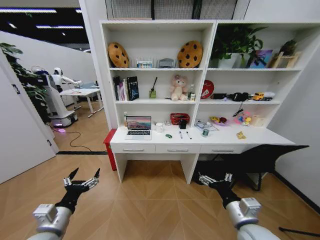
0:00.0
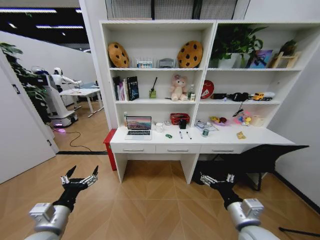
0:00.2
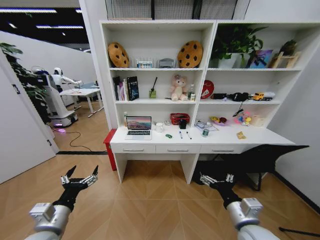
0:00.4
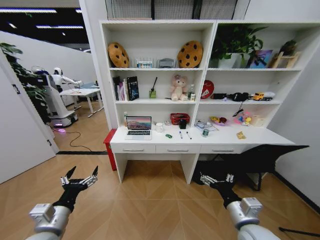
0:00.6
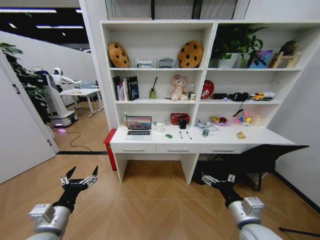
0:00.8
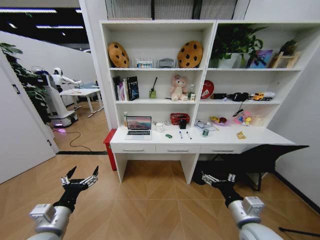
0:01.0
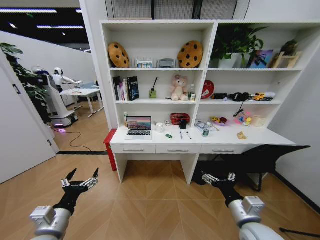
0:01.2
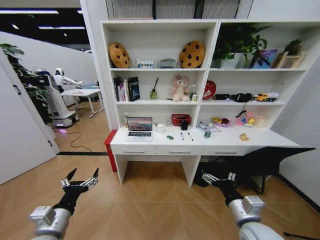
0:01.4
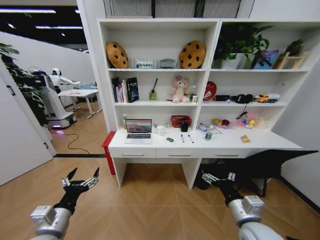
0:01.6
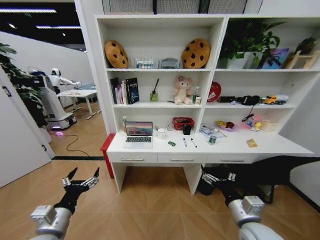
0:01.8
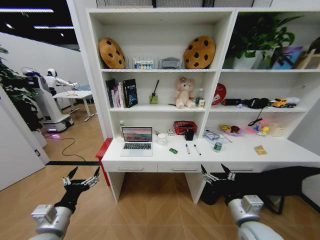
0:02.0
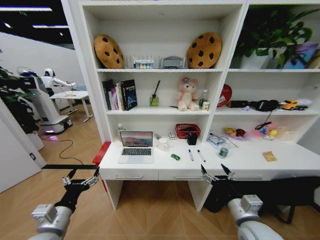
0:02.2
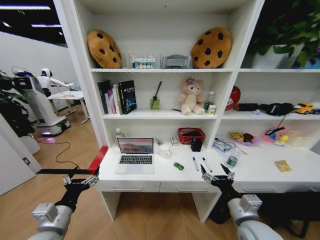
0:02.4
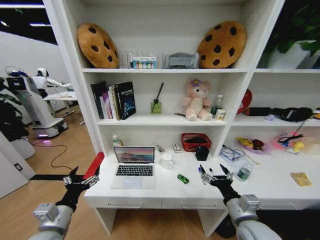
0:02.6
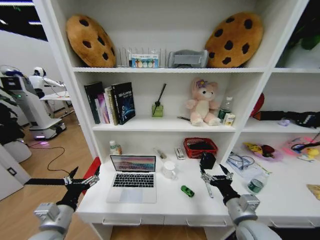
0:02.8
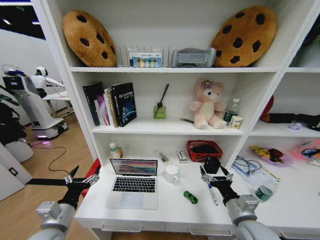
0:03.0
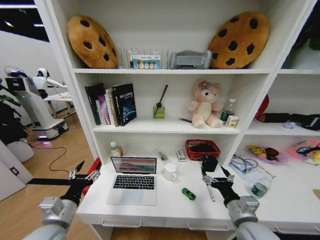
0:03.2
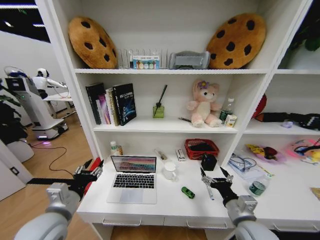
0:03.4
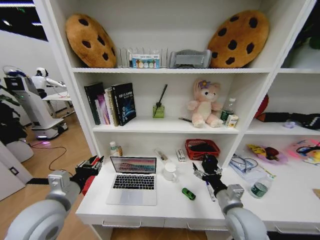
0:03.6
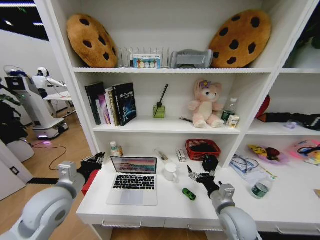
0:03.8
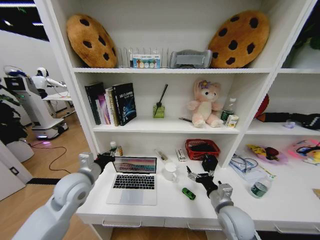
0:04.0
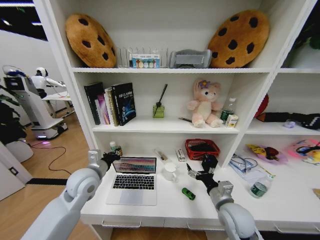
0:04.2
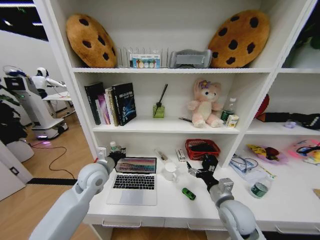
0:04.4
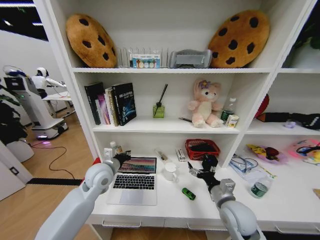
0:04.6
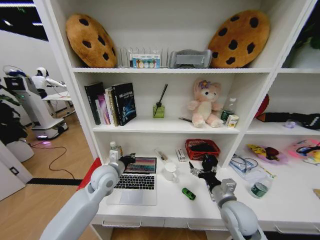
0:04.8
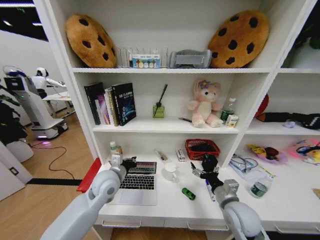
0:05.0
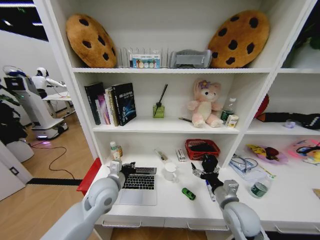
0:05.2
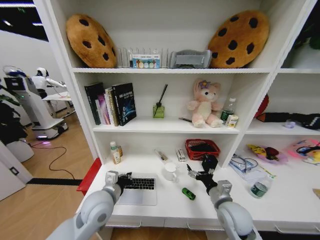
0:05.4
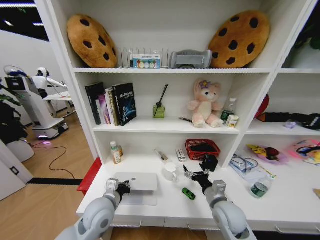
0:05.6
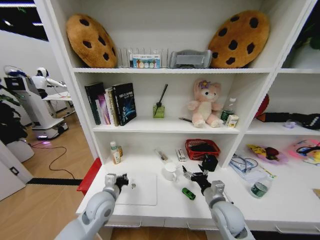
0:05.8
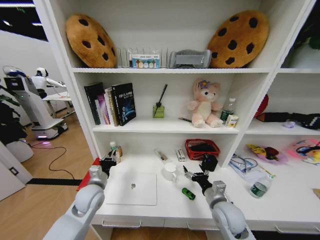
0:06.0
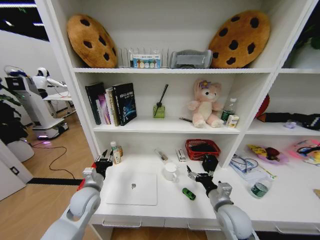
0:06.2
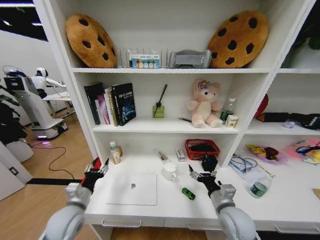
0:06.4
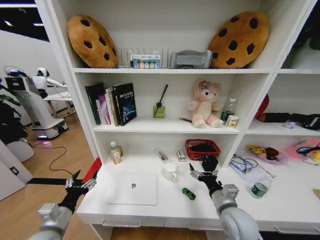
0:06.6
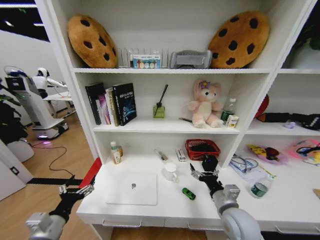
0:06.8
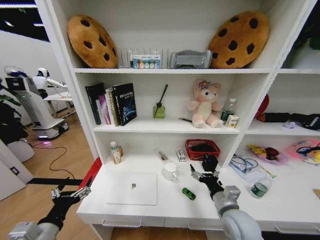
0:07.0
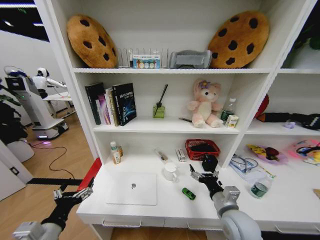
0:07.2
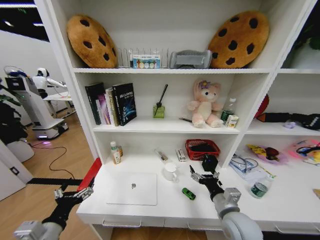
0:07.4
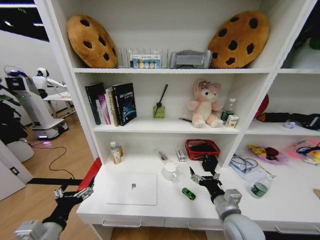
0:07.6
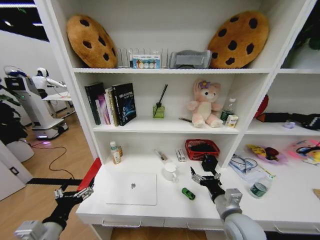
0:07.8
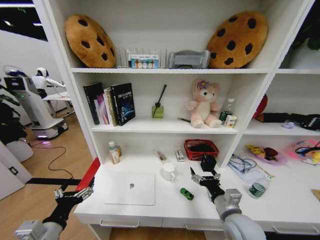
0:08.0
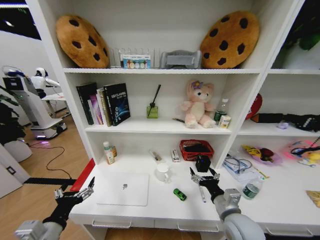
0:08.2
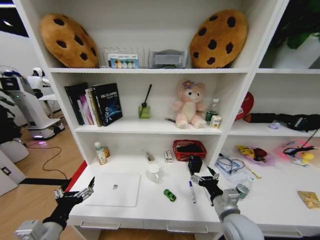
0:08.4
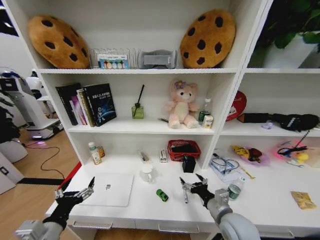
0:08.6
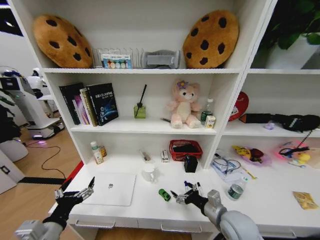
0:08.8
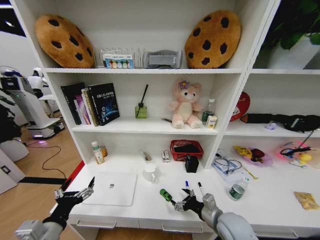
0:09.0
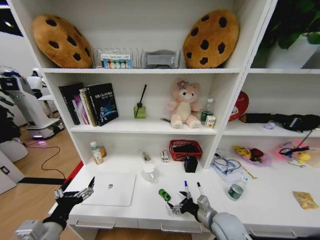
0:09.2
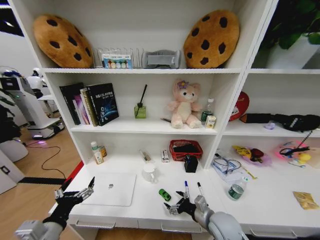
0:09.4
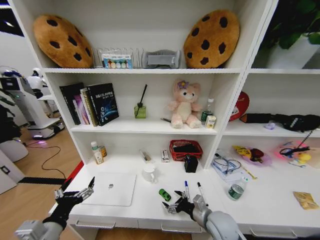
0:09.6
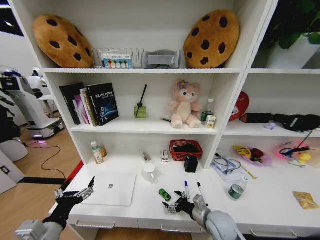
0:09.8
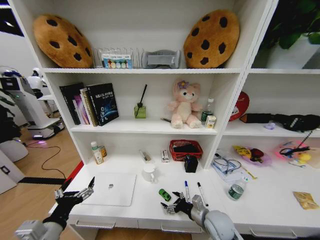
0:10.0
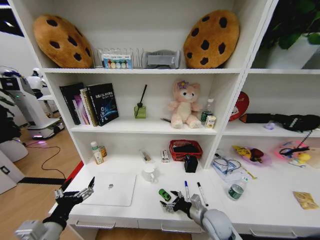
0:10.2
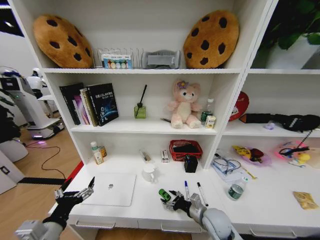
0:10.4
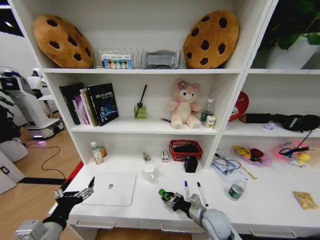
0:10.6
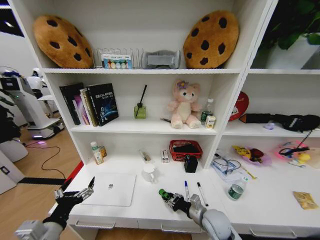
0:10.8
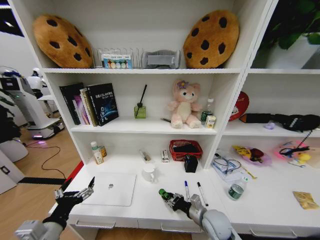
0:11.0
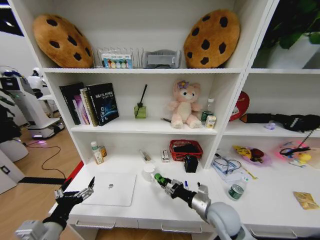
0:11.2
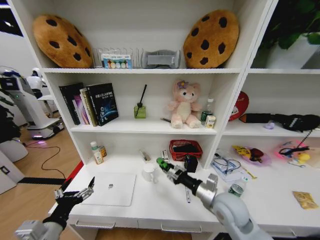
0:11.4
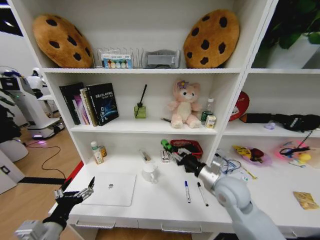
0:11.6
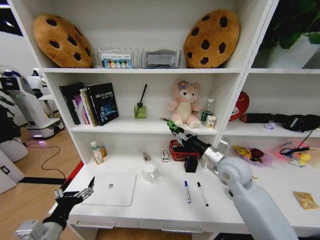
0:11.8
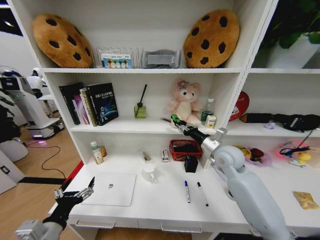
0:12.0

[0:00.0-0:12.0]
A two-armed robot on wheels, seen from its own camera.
Task of the whole recording: Organize the objects on the table.
0:03.0 to 0:04.4: The left gripper moves forward and to the right, approximately 20 cm, and closes its fingers. The right gripper goes some 5 cm forward.
0:04.4 to 0:06.0: The left gripper travels downward by approximately 10 cm, and travels backward and back again, some 10 cm each way.
0:06.0 to 0:07.6: The left gripper is displaced backward by some 20 cm, and opens up. Meanwhile the right gripper is displaced backward by roughly 5 cm.
0:09.0 to 0:10.4: The right gripper goes roughly 5 cm downward.
0:10.4 to 0:12.0: The right gripper heads upward and forward, covering approximately 25 cm, and closes up.

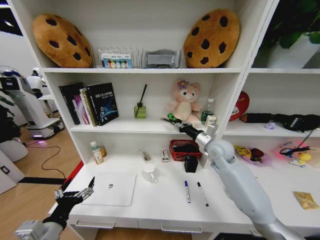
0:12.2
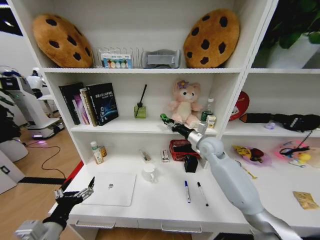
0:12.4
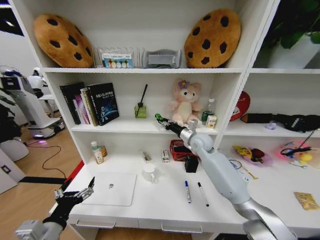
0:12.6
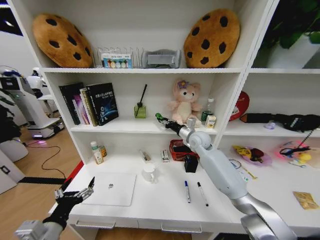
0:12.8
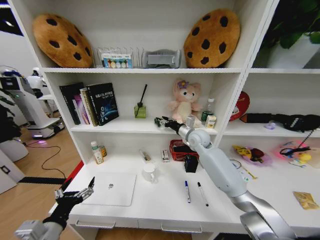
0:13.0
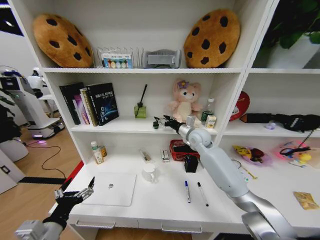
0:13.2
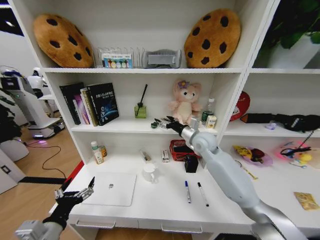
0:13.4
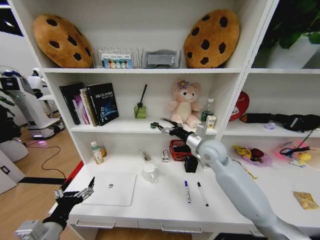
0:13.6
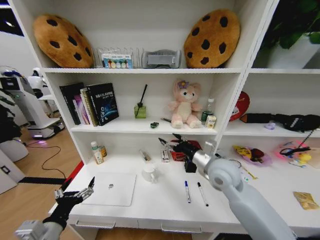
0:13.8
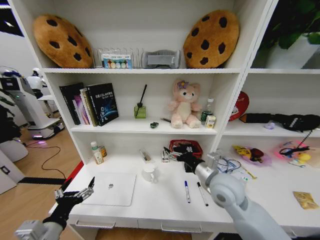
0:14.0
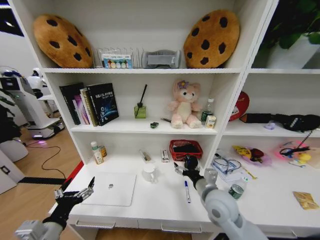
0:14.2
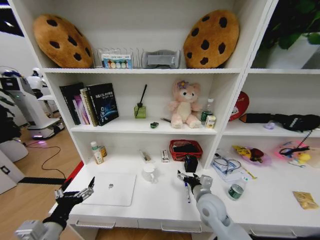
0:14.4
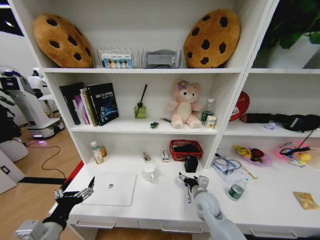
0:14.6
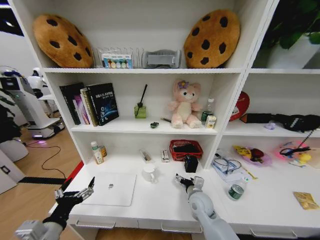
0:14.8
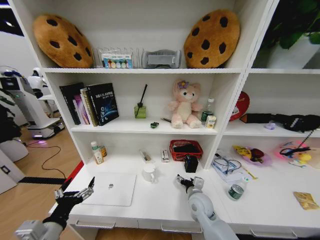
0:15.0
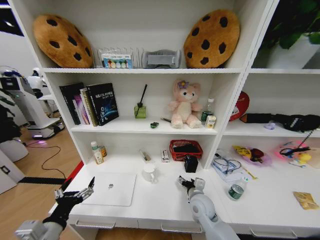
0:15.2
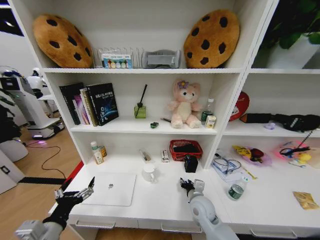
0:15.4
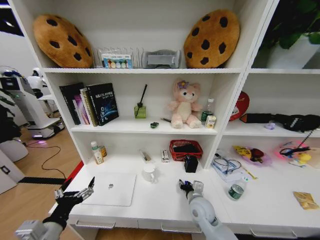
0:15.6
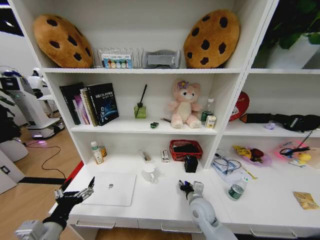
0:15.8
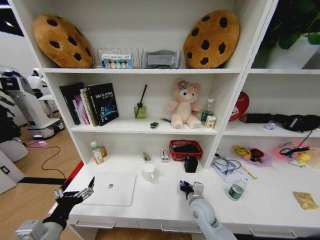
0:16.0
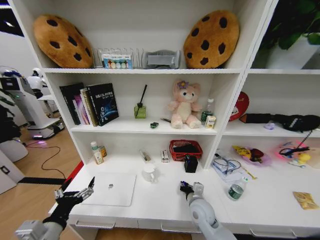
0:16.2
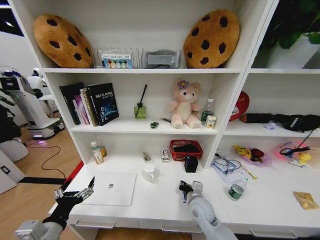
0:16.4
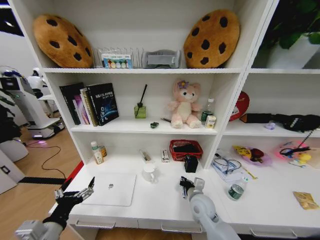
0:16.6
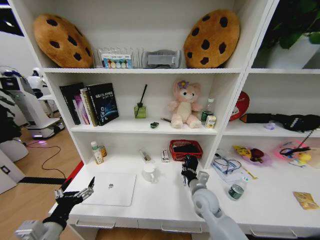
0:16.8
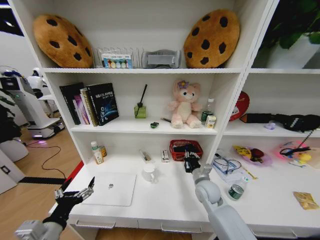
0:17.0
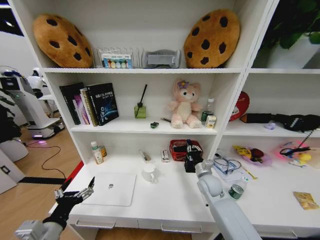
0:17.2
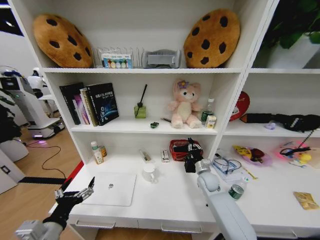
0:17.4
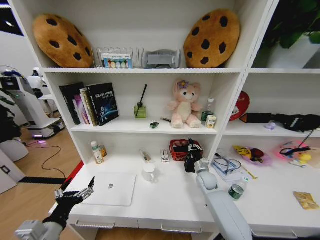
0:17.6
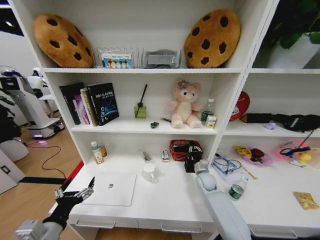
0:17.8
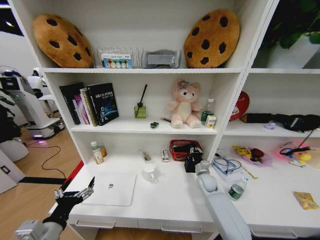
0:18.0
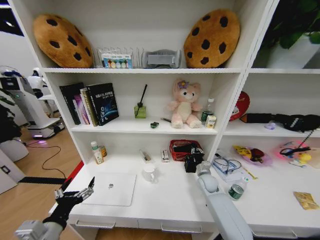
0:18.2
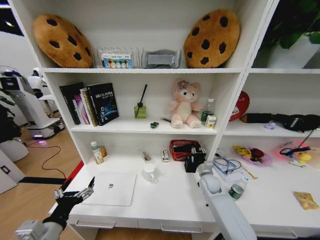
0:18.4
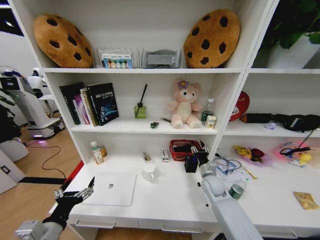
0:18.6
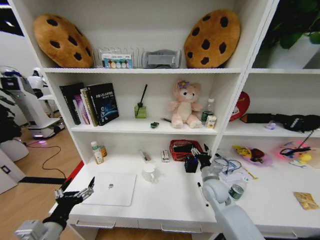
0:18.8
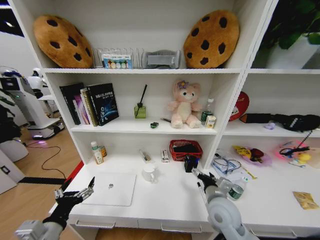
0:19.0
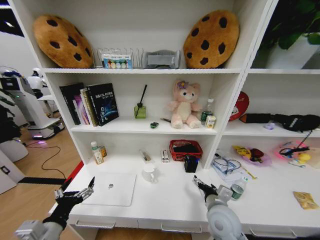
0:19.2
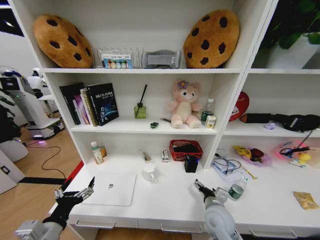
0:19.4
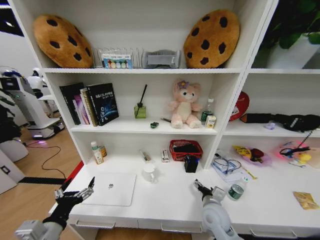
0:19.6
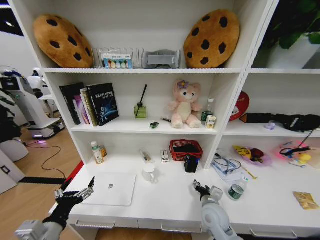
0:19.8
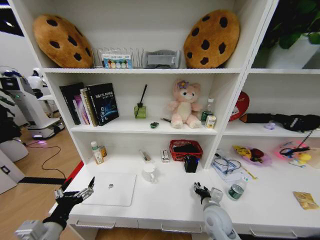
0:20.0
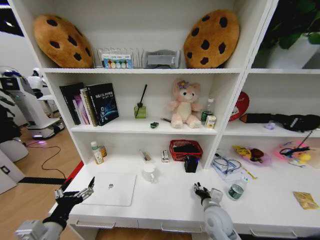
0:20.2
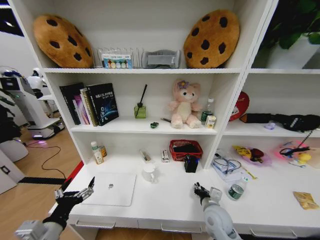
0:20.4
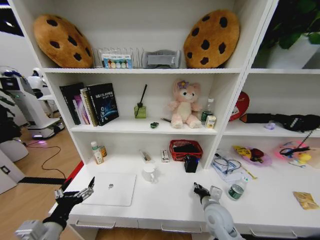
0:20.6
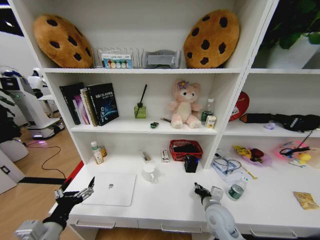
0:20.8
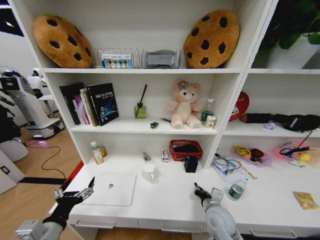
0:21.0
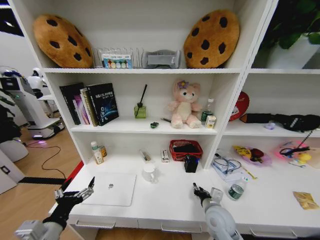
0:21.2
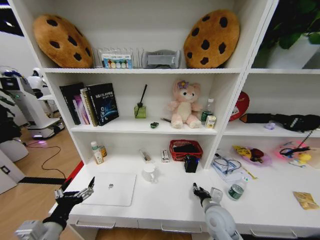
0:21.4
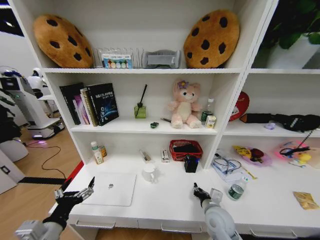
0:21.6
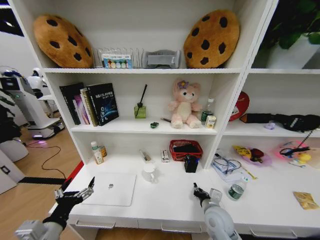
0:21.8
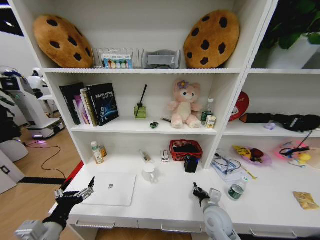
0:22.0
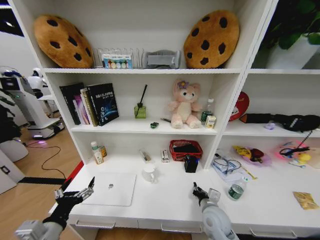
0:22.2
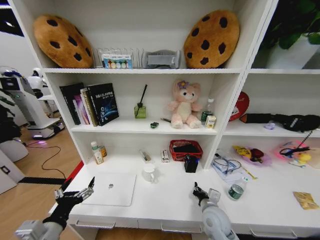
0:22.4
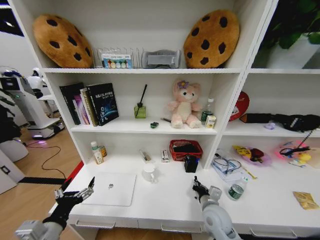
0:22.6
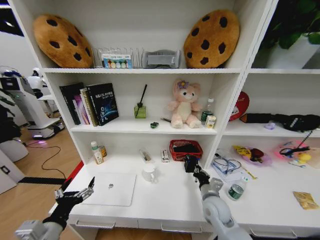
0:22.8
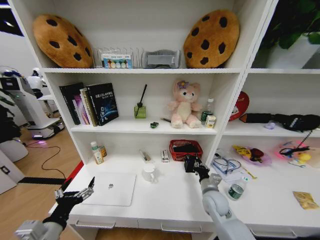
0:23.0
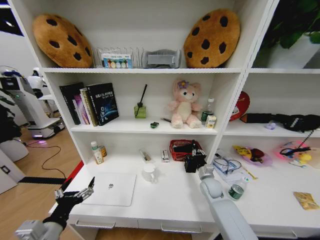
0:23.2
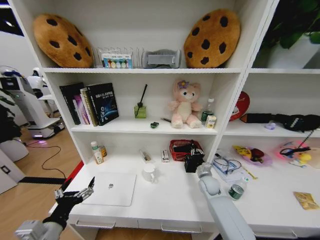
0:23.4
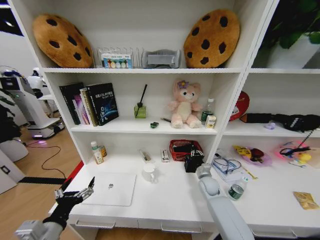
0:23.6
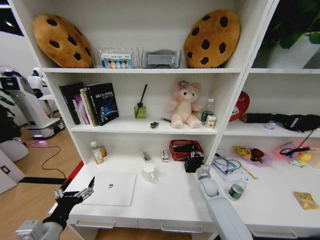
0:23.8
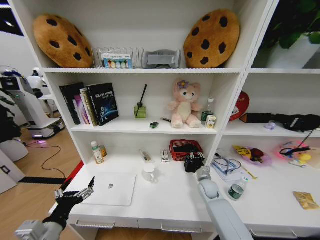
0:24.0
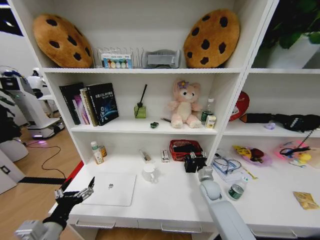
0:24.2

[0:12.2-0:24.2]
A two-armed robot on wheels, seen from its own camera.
Task of the whole recording: Organize the objects on the table.
0:12.2 to 0:13.8: The right gripper goes approximately 10 cm backward, and opens its fingers.
0:13.8 to 0:15.2: The right gripper shifts some 20 cm downward.
0:16.6 to 0:18.2: The right gripper shifts about 15 cm forward and to the right.
0:18.2 to 0:19.8: The right gripper goes approximately 15 cm backward, and opens.
0:19.8 to 0:21.2: The right gripper closes up.
0:22.6 to 0:24.2: The right gripper shifts roughly 15 cm forward.
